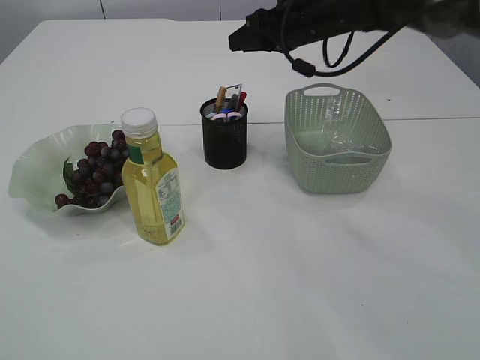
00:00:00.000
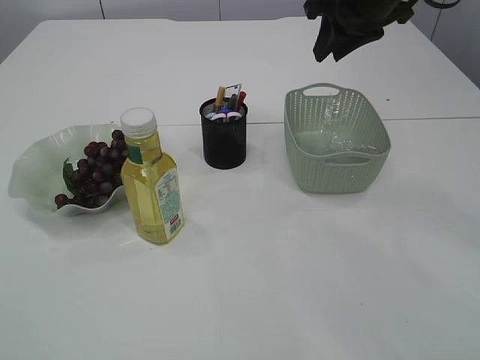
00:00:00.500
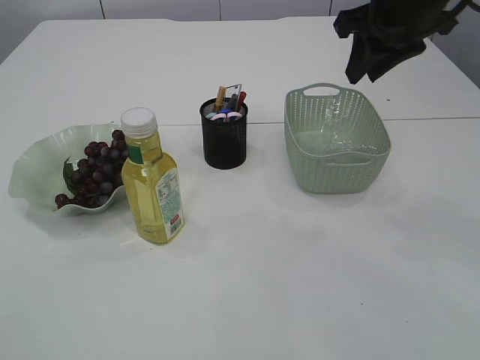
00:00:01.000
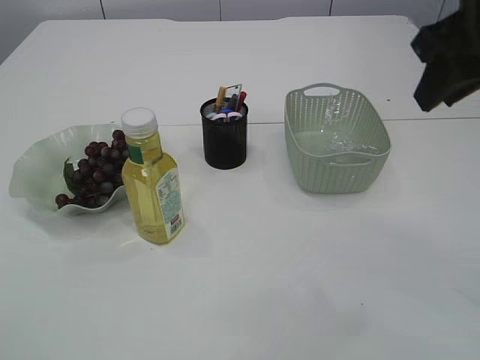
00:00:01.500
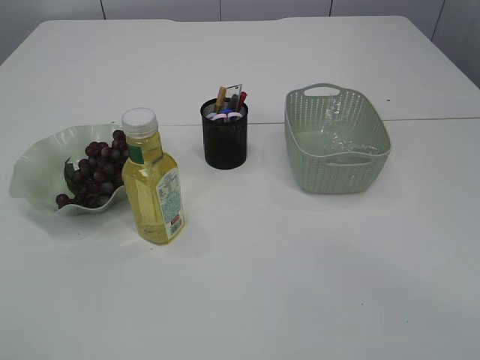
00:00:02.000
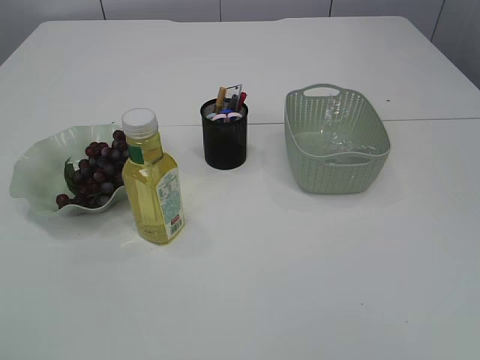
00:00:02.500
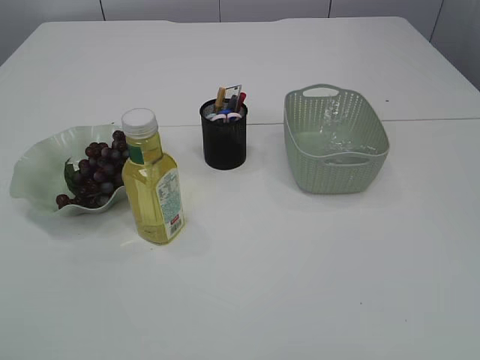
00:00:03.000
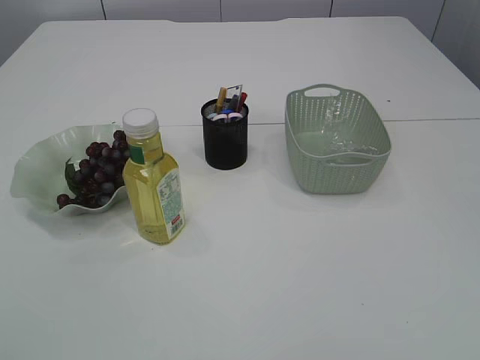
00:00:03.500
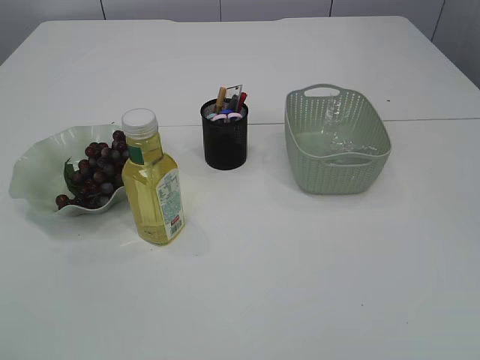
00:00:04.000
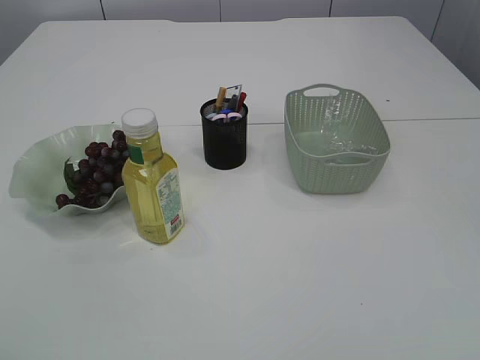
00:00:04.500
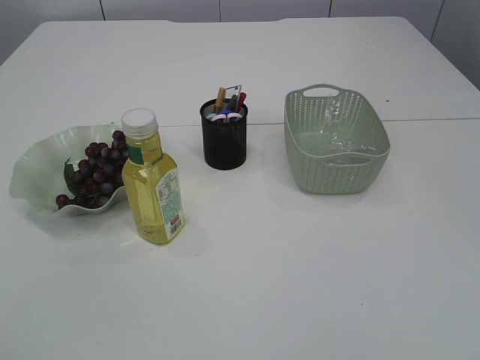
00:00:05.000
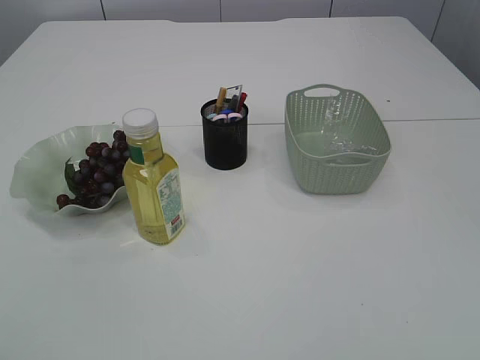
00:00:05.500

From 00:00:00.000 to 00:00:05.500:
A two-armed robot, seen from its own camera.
From 00:00:00.000 to 00:00:02.000: The right gripper is displaced backward by approximately 35 cm, while the left gripper shifts roughly 10 cm backward.
